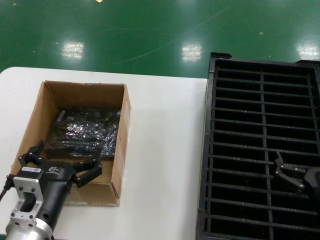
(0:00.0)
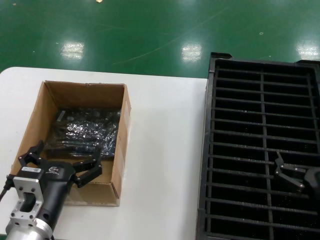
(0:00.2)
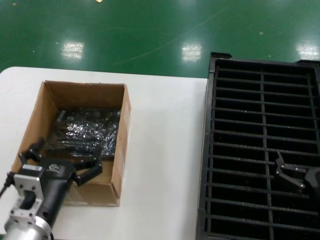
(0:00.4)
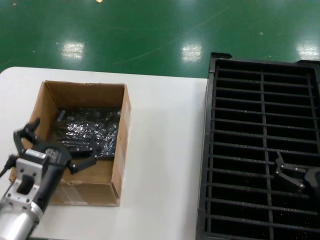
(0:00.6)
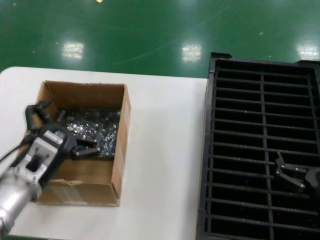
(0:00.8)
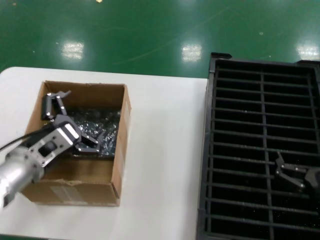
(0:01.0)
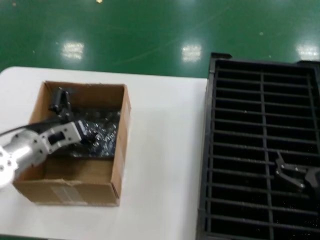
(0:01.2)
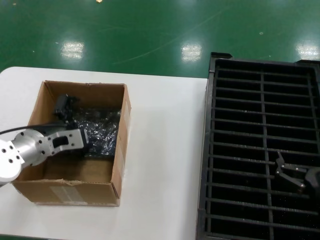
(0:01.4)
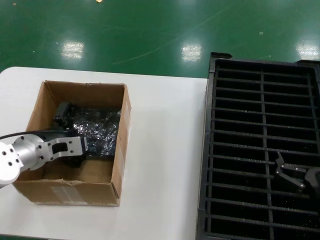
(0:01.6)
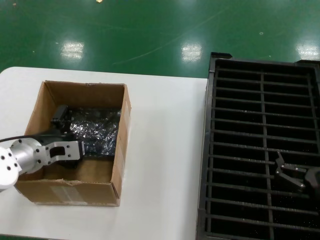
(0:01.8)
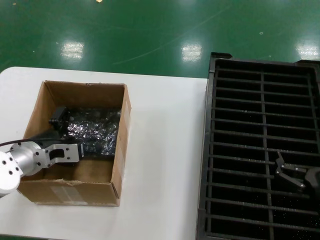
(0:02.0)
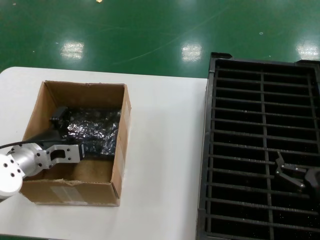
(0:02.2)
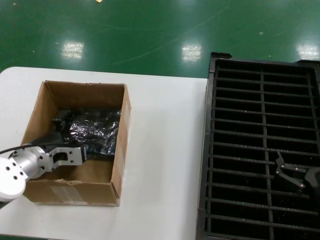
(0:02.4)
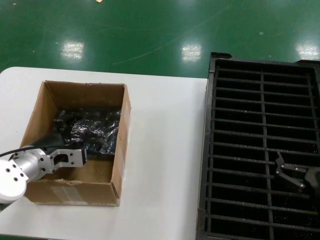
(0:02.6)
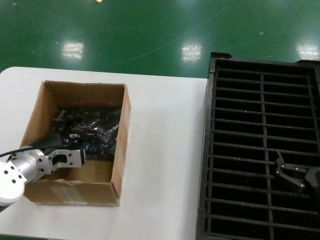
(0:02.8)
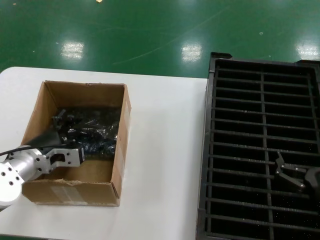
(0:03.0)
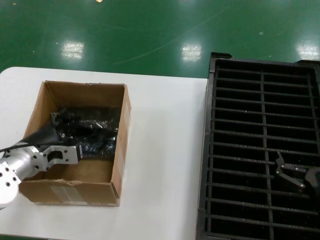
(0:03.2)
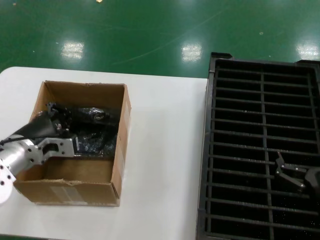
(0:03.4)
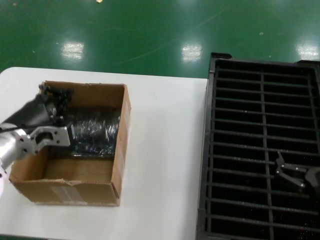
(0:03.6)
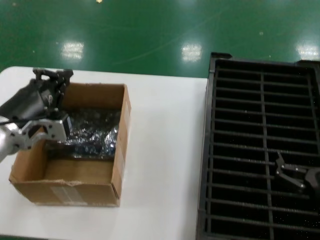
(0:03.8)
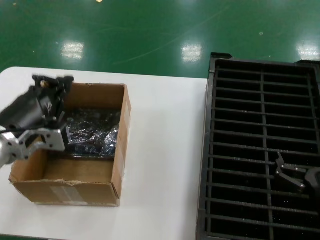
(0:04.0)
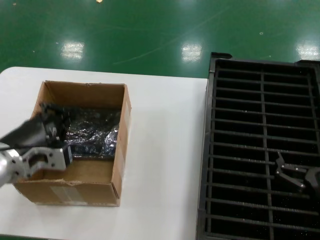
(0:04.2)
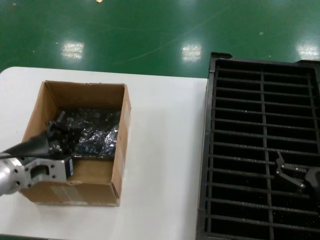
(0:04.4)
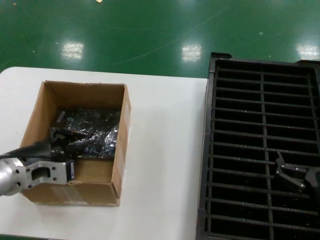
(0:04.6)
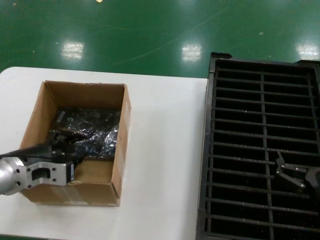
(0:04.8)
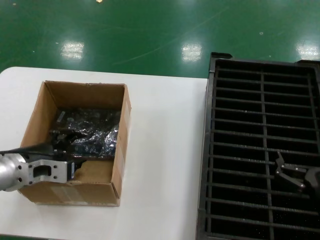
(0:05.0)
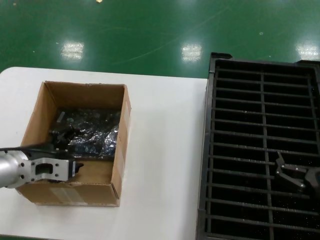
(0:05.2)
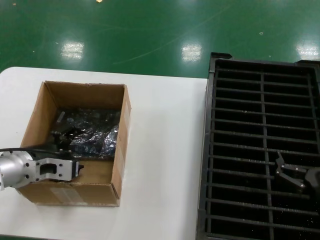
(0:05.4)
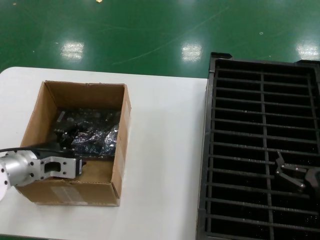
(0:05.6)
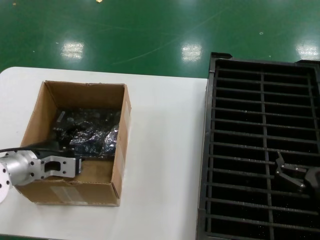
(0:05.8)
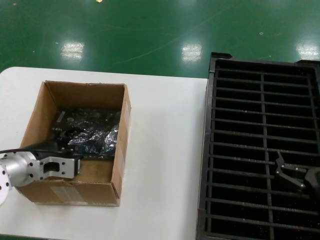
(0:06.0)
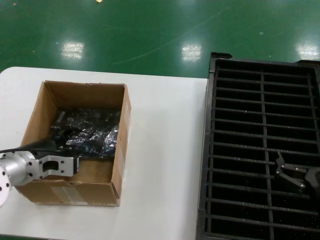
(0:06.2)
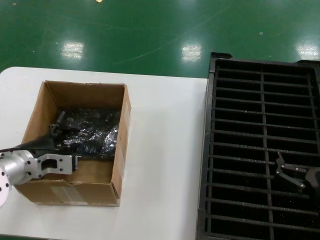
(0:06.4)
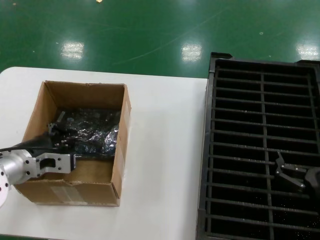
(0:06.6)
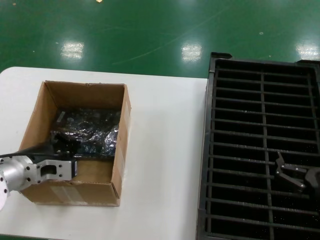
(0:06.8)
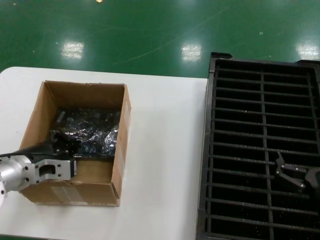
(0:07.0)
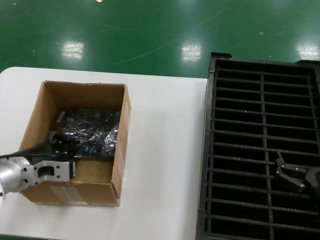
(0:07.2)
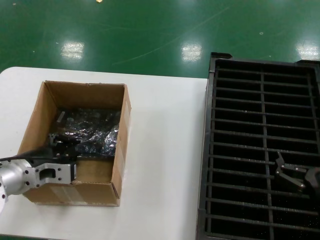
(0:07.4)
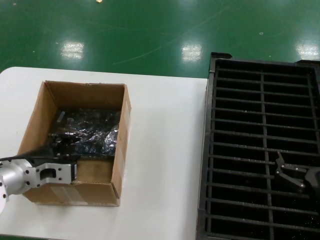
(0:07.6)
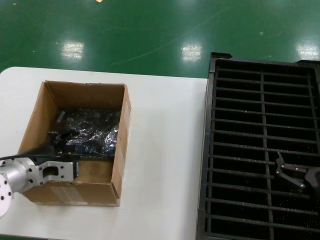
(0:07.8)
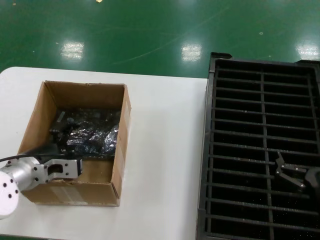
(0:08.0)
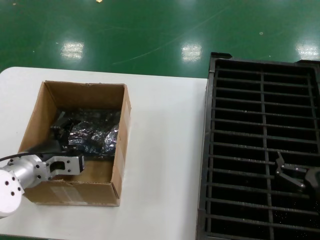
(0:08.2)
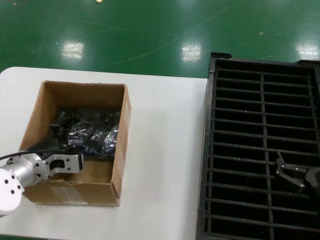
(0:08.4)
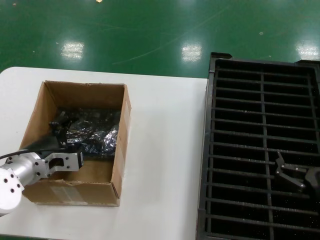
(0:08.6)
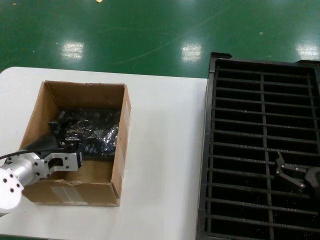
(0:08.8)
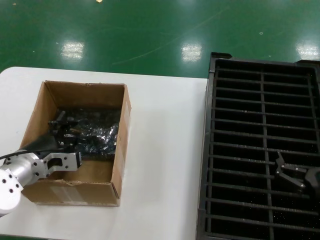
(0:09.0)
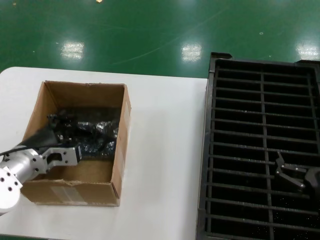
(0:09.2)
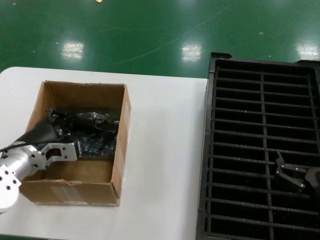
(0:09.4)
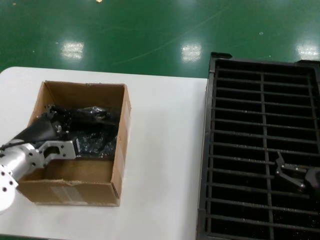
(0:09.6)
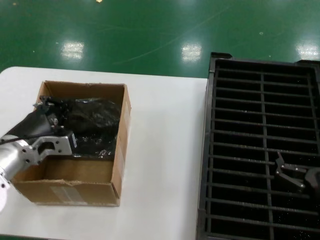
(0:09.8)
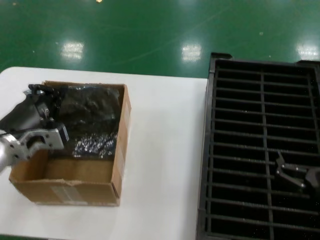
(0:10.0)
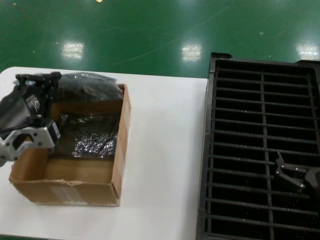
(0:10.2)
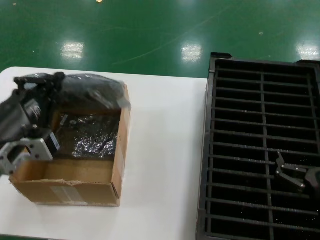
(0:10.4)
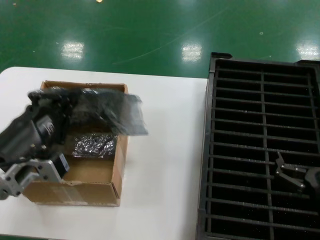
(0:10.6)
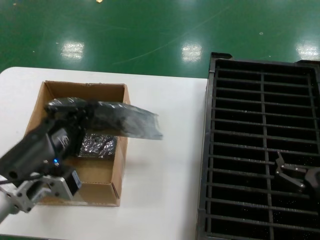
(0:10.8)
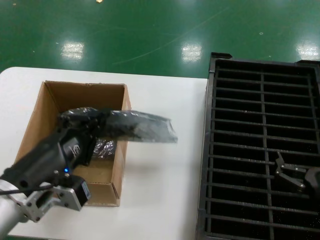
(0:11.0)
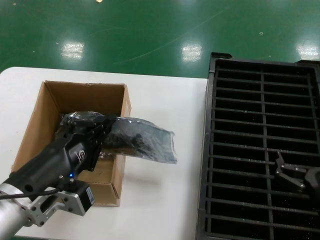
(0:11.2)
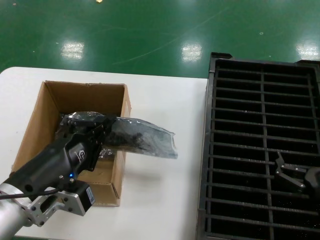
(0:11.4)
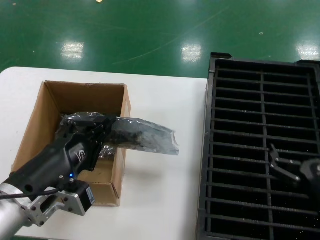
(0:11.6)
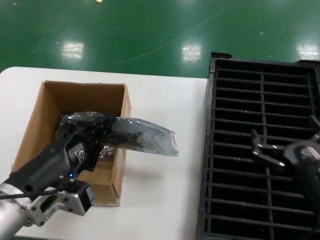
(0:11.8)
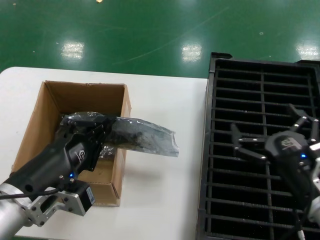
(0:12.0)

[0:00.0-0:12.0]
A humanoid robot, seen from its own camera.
Task of the whole recording: take out graphics card from box remove packaging put into black container.
Step, 0:00.0 to 0:09.0: Grasp the bag.
Step, 0:09.4 to 0:11.4: Lift the bag.
0:00.0 to 0:01.6: The left hand is displaced forward, to the left and upward by some 20 cm.
0:01.6 to 0:03.0: There are only small adjustments of the hands.
0:03.0 to 0:04.4: The left hand shifts approximately 10 cm backward and upward.
0:04.4 to 0:06.0: The left hand moves forward, some 5 cm.
0:06.0 to 0:09.0: The hands move only a little.
0:09.0 to 0:10.4: The left hand heads backward and upward, covering some 15 cm.
0:10.4 to 0:12.0: The left hand ends up approximately 10 cm from where it was. The right hand moves approximately 5 cm.

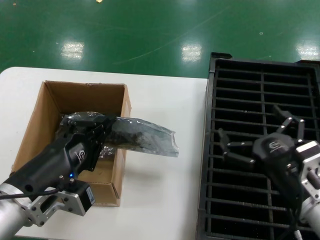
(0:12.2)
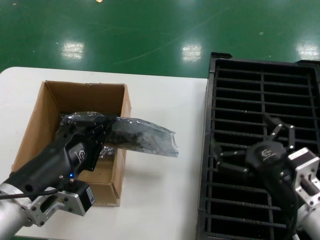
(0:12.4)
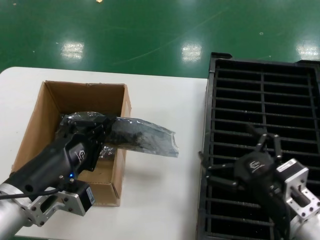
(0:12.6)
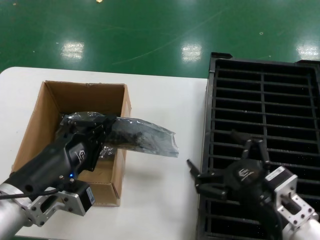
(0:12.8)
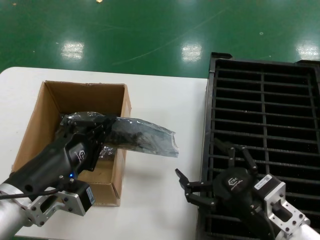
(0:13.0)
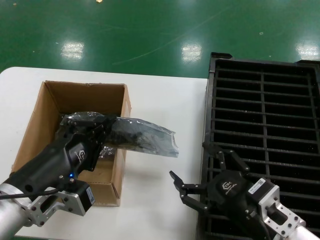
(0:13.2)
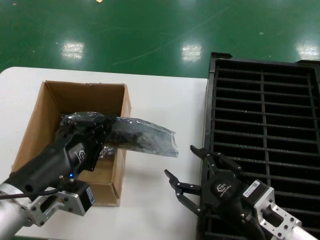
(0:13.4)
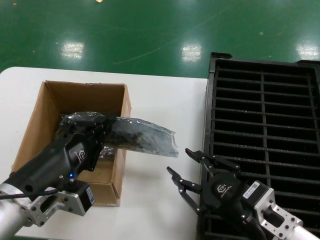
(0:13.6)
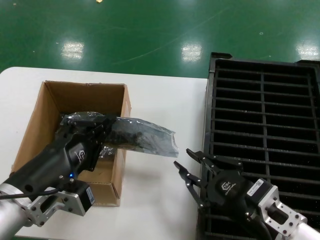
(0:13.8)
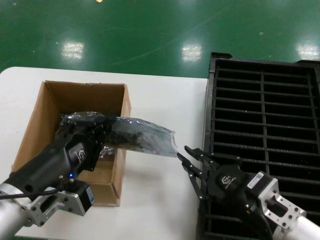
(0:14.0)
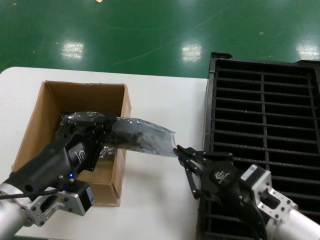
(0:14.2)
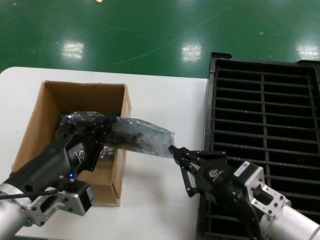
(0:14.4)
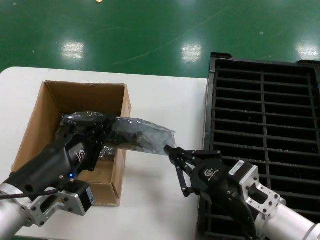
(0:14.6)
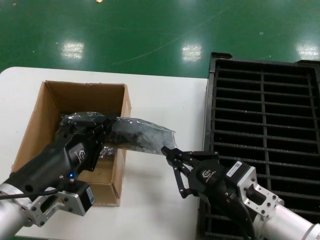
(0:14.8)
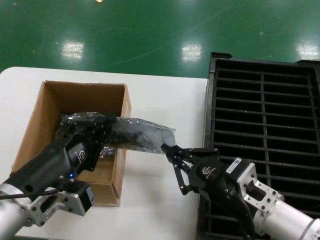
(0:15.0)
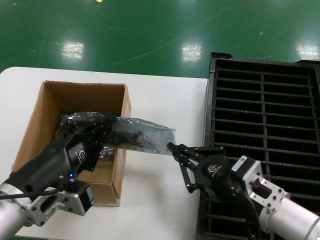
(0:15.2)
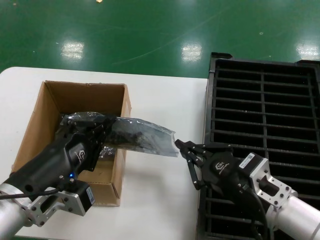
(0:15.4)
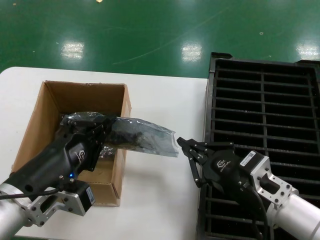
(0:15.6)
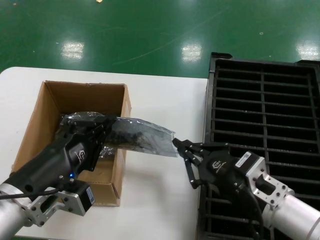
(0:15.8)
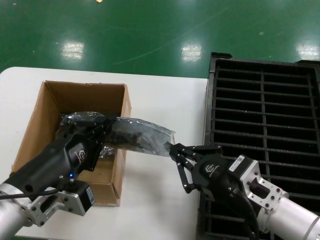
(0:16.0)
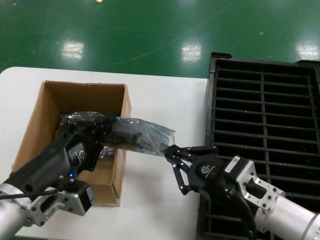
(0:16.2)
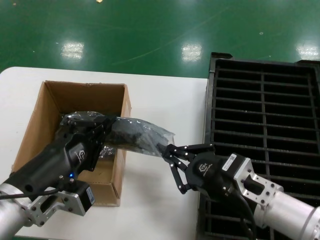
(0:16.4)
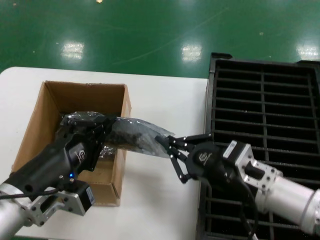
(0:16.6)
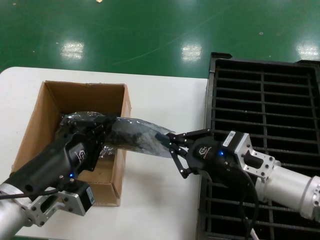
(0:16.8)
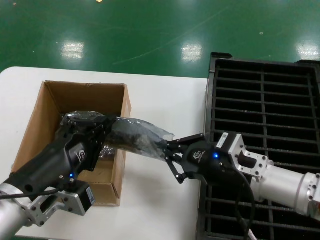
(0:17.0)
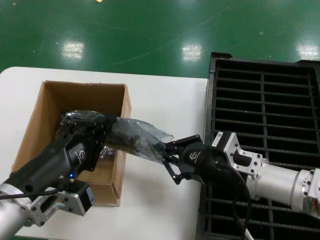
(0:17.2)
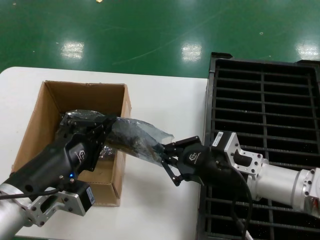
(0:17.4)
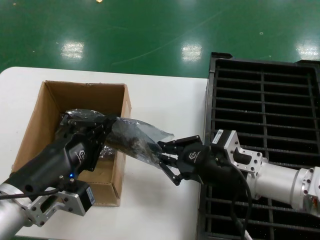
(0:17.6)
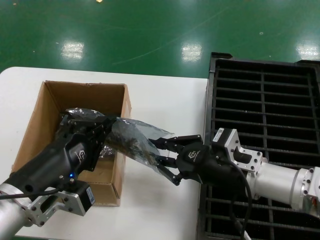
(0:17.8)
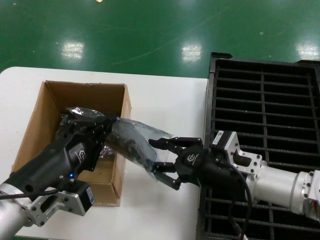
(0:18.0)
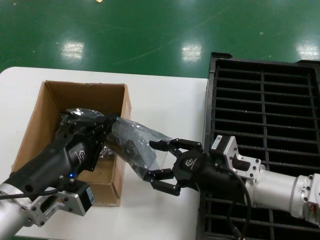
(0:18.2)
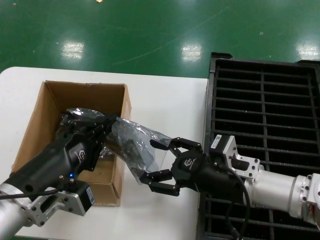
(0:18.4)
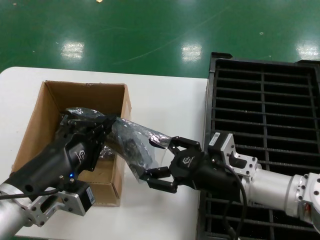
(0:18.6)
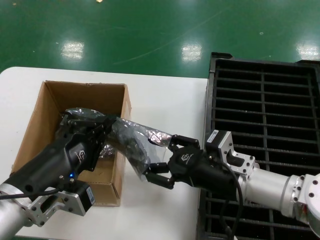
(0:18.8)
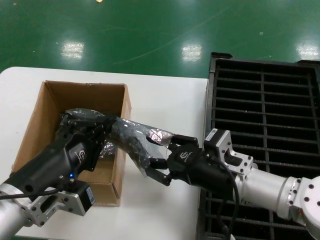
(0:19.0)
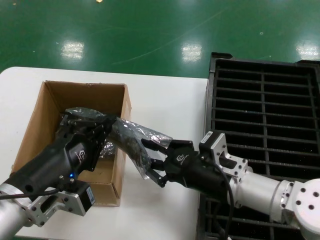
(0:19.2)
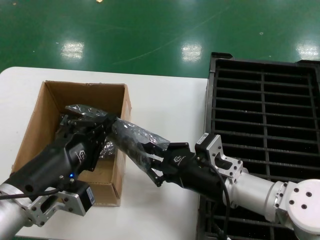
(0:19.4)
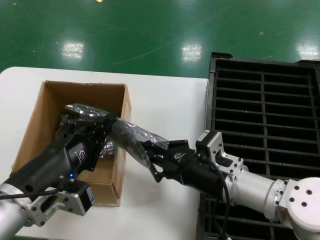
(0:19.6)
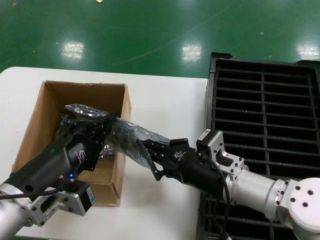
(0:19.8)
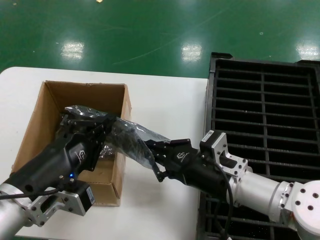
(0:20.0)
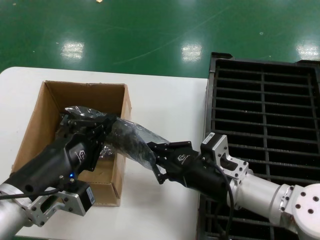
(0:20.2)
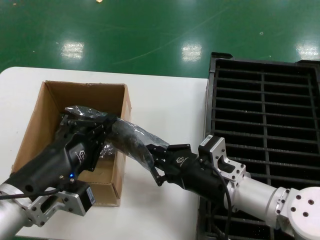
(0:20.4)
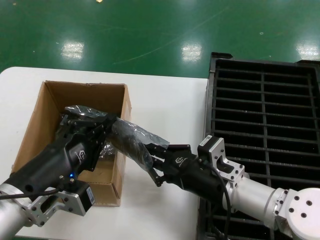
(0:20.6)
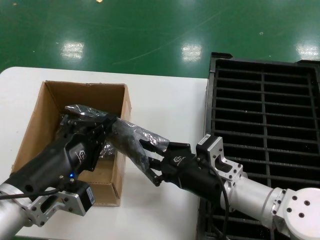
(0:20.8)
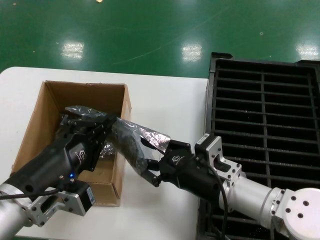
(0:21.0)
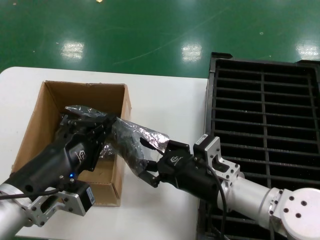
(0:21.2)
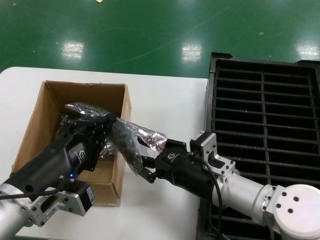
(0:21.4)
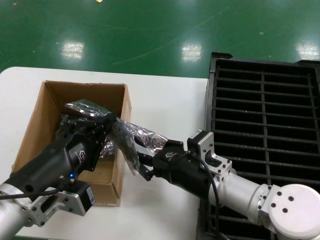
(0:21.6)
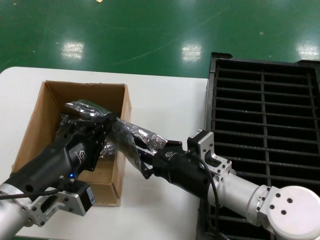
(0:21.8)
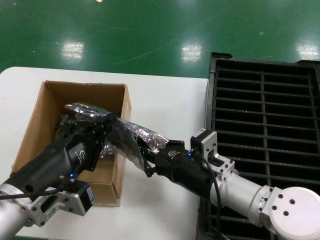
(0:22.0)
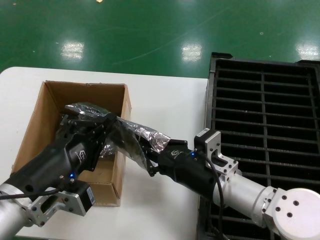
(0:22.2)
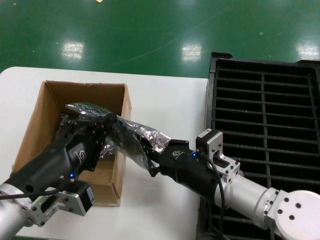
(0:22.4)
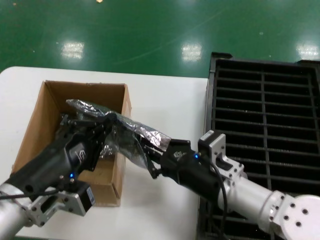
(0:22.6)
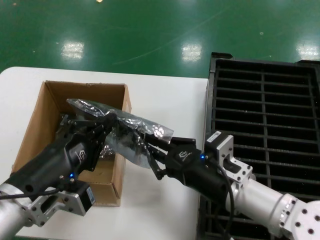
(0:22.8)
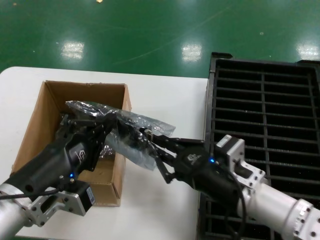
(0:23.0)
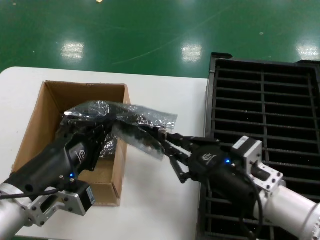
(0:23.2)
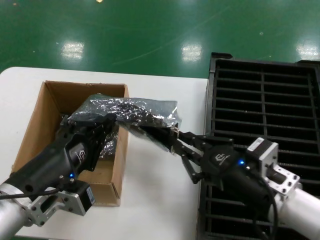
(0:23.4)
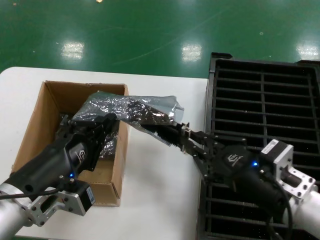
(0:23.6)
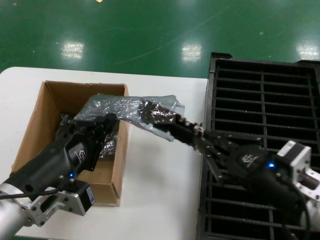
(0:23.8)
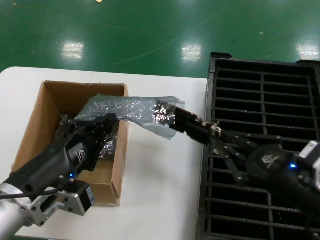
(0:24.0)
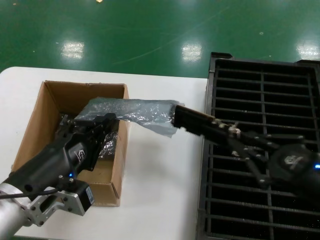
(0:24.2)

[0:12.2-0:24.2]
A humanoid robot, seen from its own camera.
Task of the whole recording: take out graphics card from box remove packaging put into black container.
0:13.8 to 0:15.2: There are only small adjustments of the hands.
0:15.2 to 0:16.6: There are only small adjustments of the hands.
0:16.6 to 0:19.8: The hands stay close to where they were, moving slightly.
0:19.8 to 0:22.6: The hands make only small movements.
0:22.6 to 0:24.2: The right hand shifts about 20 cm to the right, backward and upward.
